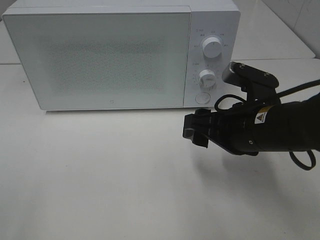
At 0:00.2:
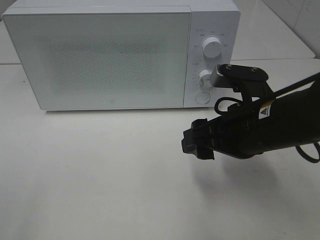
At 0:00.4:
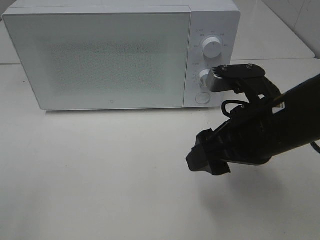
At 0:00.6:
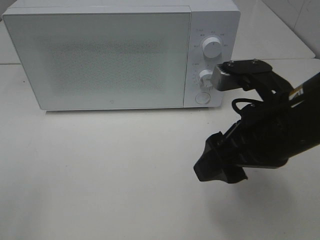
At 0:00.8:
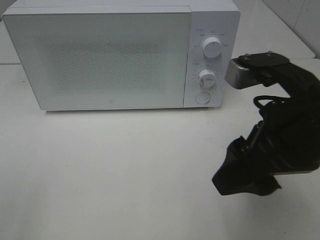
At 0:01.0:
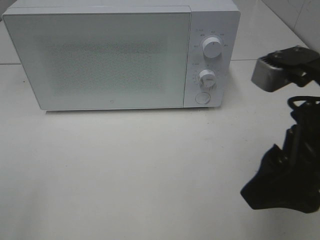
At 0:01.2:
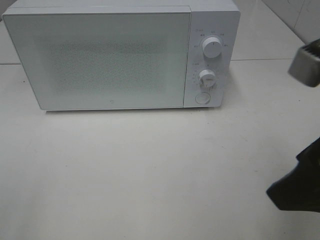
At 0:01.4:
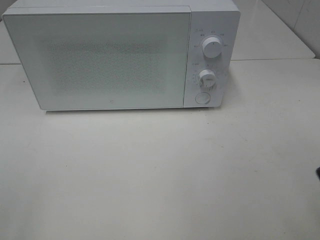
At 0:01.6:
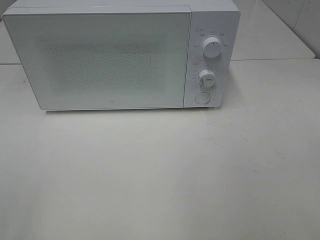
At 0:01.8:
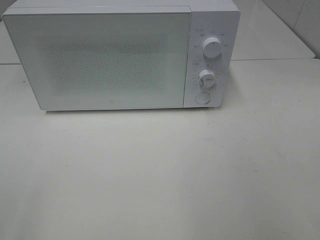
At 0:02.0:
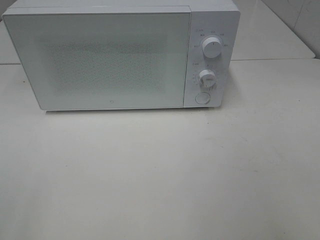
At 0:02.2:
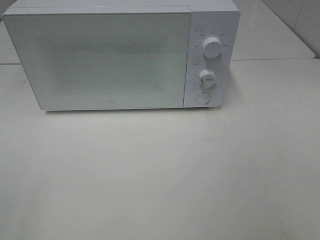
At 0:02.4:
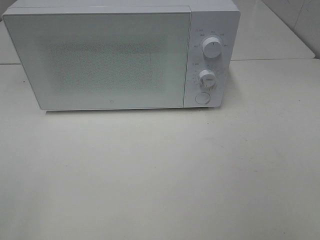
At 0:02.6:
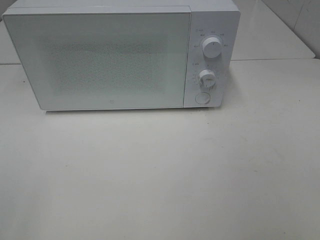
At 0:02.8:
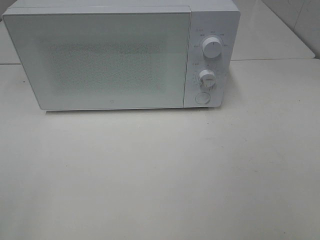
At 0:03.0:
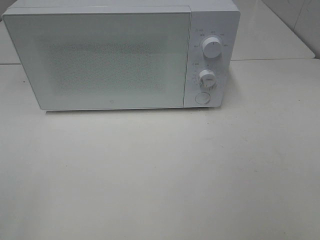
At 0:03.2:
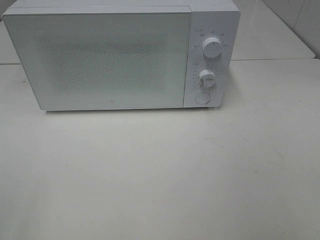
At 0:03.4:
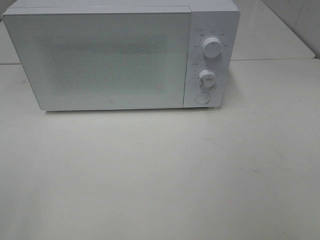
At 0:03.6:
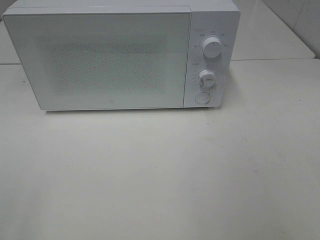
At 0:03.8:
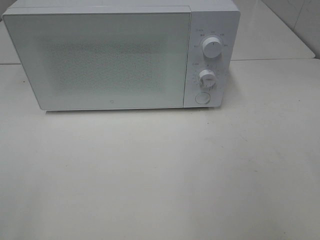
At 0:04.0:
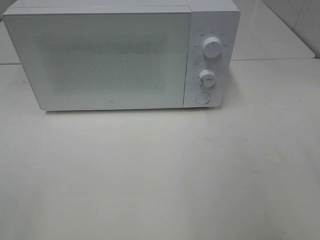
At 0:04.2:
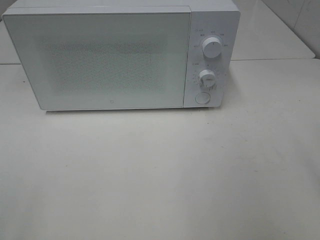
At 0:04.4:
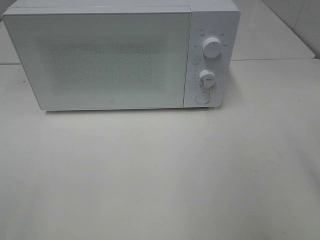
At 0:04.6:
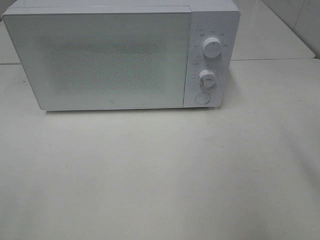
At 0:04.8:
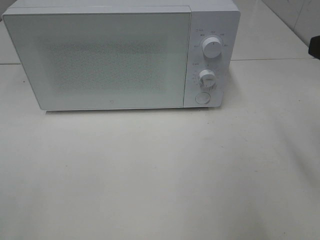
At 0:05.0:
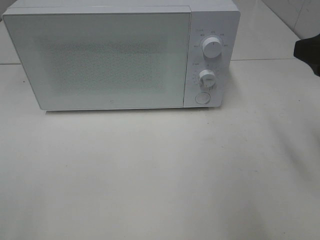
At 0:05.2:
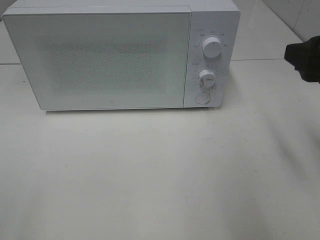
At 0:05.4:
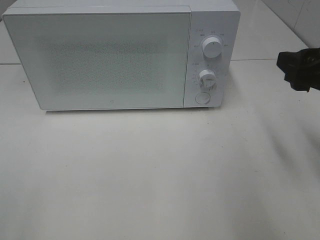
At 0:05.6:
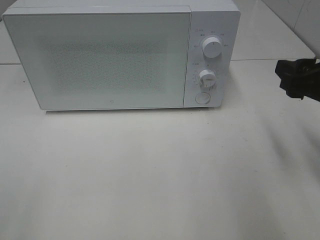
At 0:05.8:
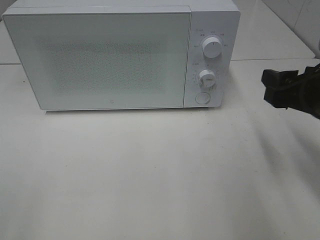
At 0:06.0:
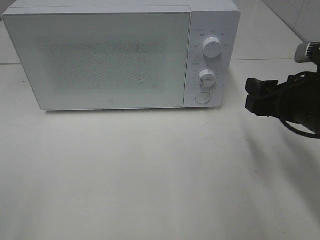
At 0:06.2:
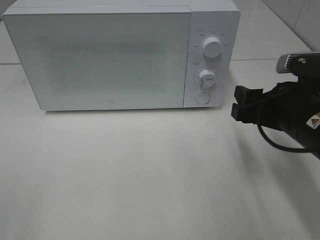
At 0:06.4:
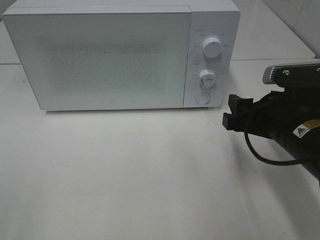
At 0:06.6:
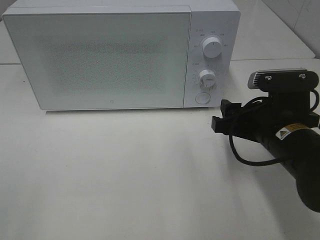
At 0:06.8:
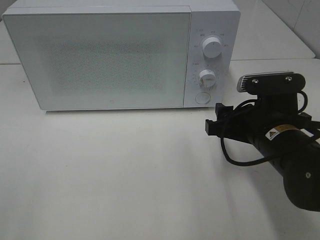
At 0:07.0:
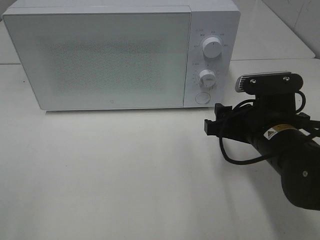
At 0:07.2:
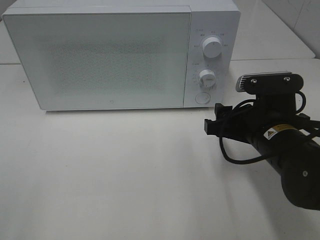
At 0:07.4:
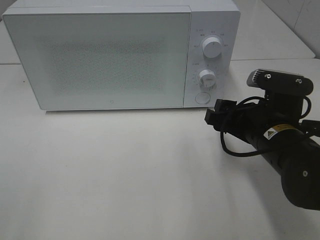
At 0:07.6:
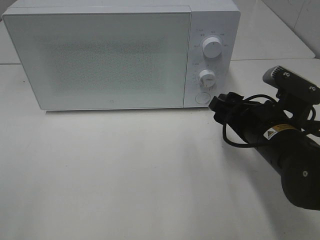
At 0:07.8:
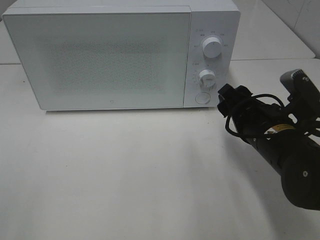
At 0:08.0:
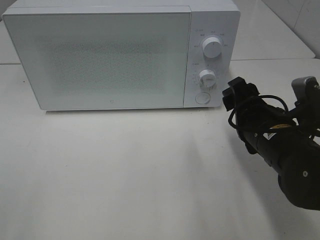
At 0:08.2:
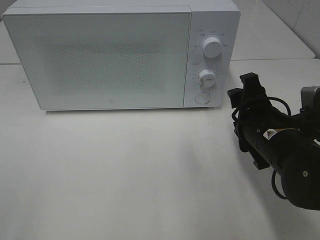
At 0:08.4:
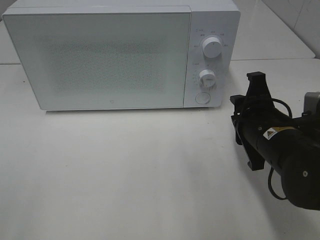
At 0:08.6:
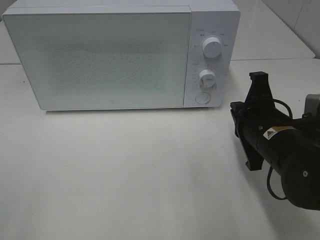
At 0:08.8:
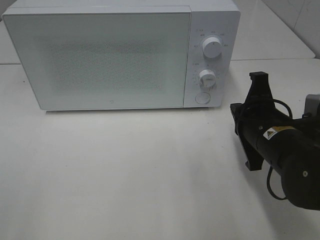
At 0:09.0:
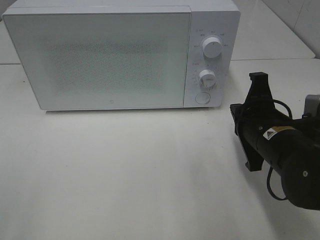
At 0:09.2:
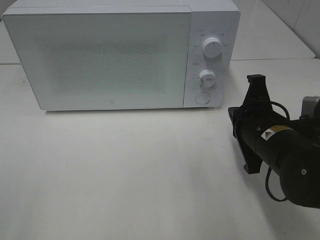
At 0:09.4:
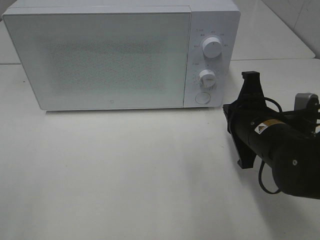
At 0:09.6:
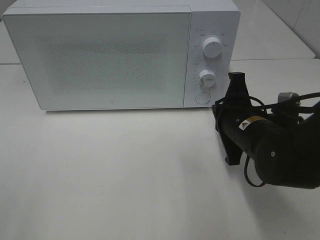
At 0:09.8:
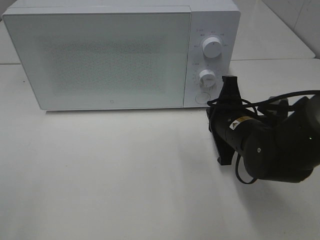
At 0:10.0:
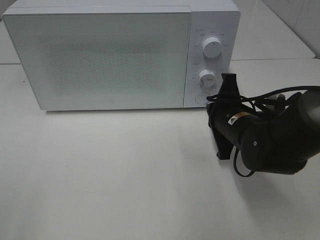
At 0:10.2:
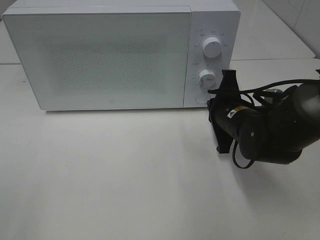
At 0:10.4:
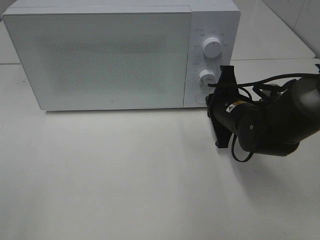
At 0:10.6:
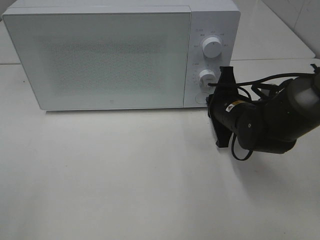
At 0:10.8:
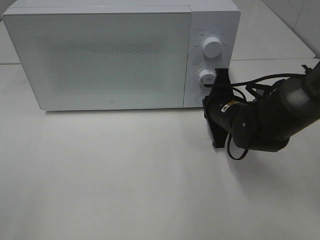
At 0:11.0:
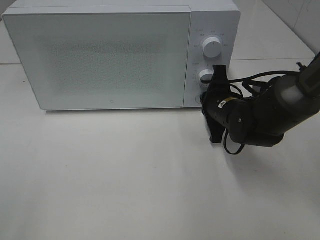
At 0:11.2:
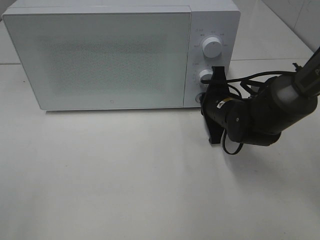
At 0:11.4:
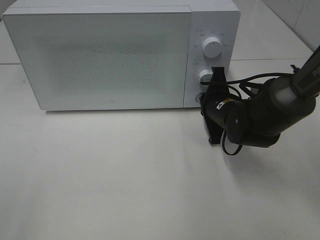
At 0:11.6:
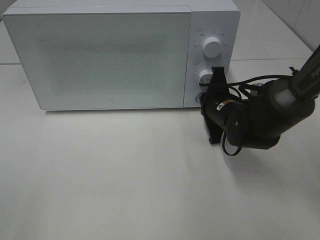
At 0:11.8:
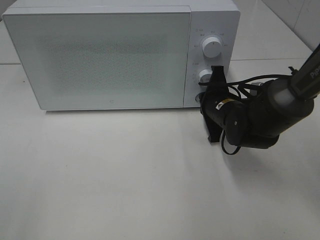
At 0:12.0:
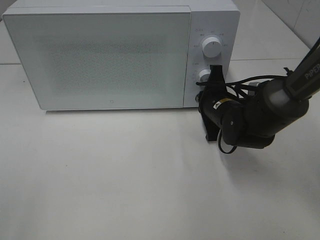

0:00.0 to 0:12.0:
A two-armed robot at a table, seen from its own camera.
Task of the whole recording: Heat Sandwich.
0:00.0 to 0:01.6: The right gripper is displaced backward, upward and to the right by approximately 25 cm.
0:04.4 to 0:06.0: The right gripper is displaced downward and forward by some 15 cm.
0:06.0 to 0:07.6: The right gripper is displaced to the left by approximately 5 cm.
0:07.6 to 0:09.0: The right gripper closes up.
0:09.0 to 0:10.4: The right gripper travels forward by some 10 cm.
0:10.4 to 0:12.0: The grippers move only a little.

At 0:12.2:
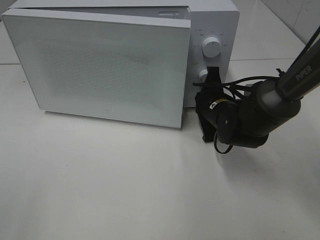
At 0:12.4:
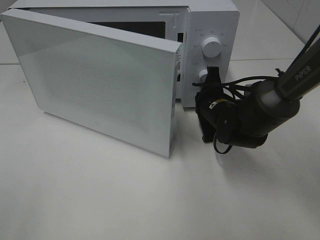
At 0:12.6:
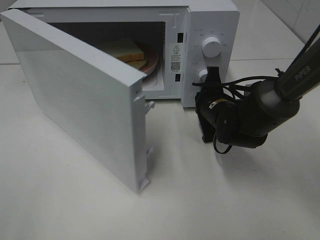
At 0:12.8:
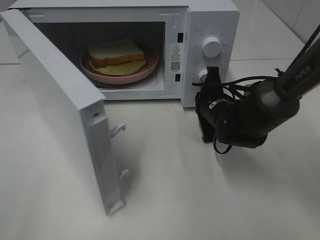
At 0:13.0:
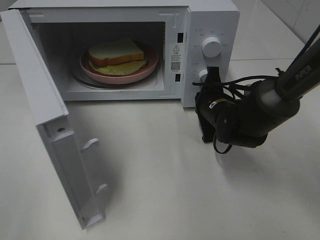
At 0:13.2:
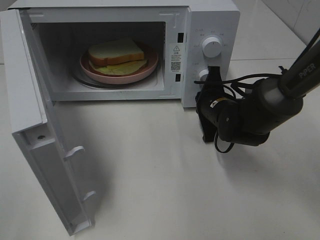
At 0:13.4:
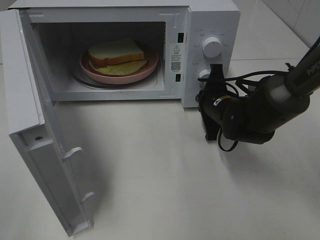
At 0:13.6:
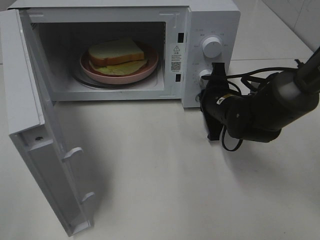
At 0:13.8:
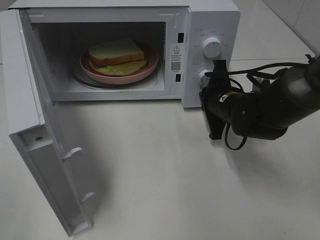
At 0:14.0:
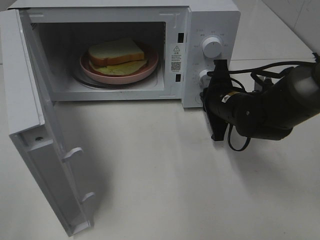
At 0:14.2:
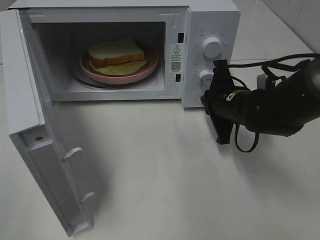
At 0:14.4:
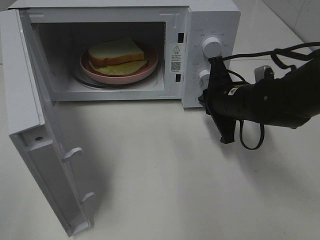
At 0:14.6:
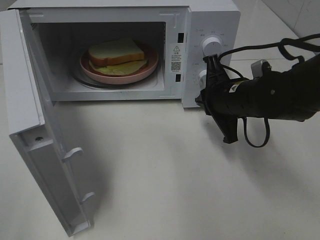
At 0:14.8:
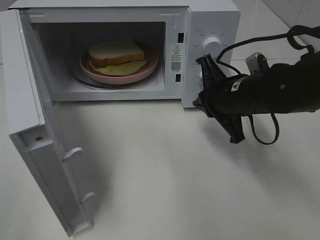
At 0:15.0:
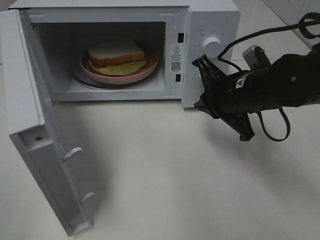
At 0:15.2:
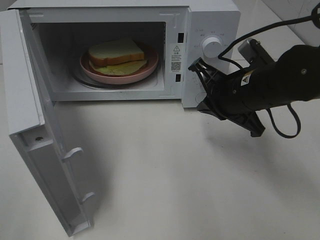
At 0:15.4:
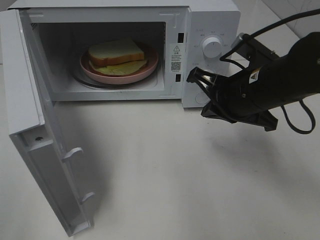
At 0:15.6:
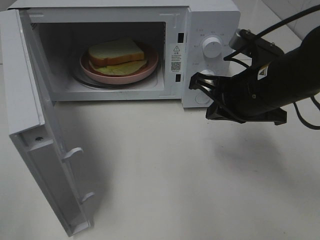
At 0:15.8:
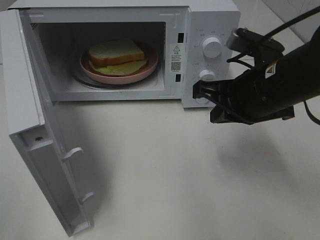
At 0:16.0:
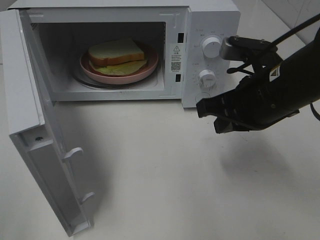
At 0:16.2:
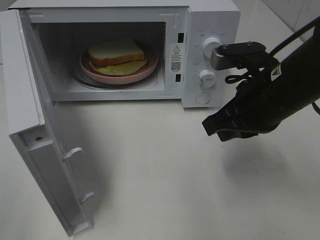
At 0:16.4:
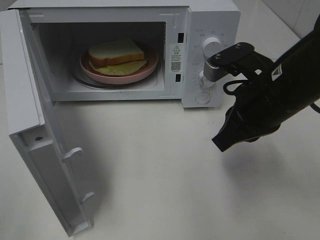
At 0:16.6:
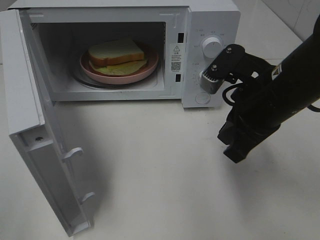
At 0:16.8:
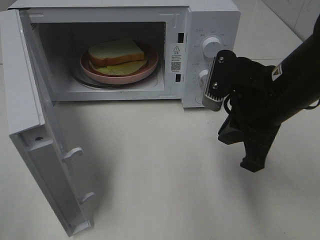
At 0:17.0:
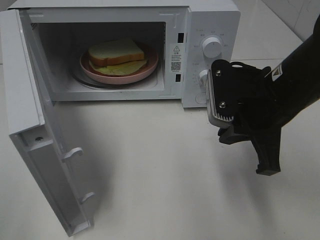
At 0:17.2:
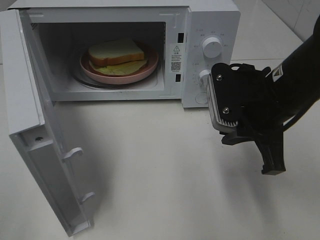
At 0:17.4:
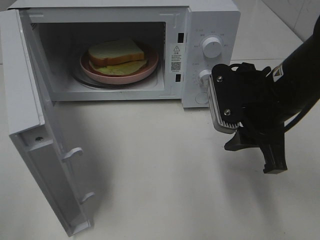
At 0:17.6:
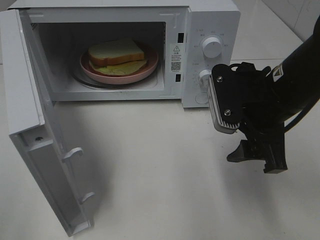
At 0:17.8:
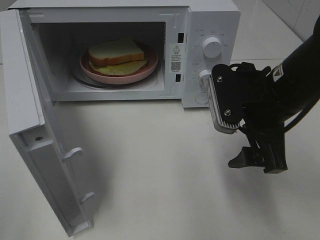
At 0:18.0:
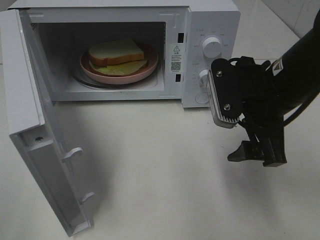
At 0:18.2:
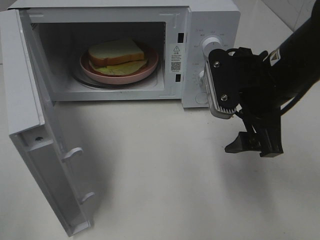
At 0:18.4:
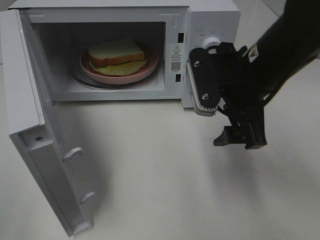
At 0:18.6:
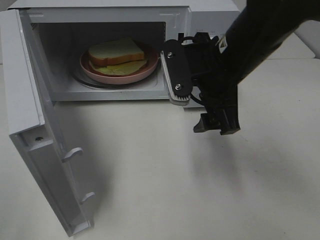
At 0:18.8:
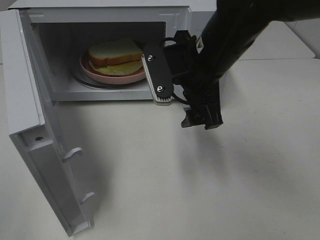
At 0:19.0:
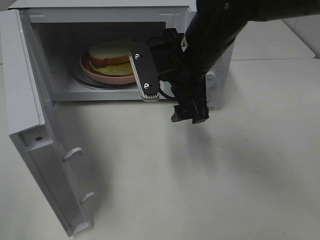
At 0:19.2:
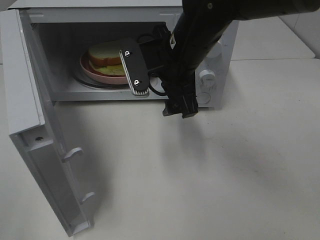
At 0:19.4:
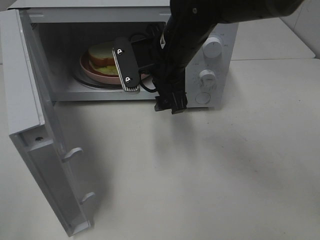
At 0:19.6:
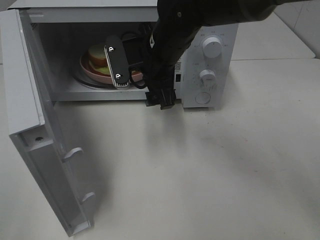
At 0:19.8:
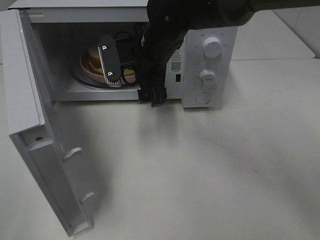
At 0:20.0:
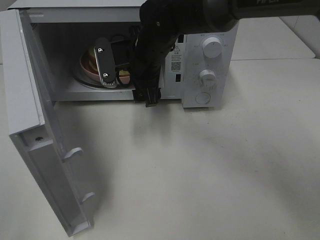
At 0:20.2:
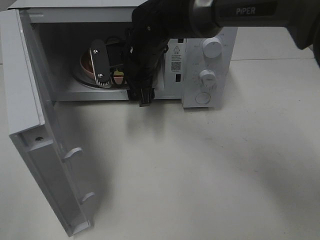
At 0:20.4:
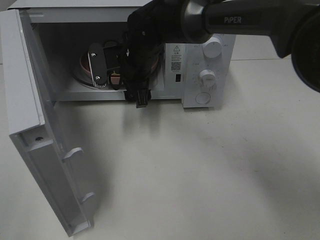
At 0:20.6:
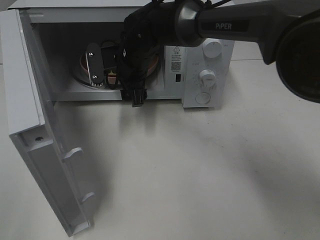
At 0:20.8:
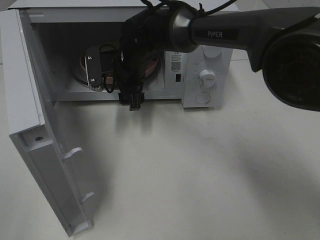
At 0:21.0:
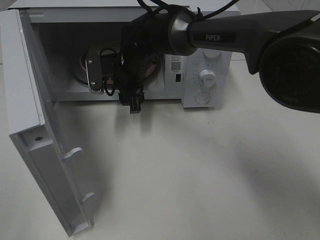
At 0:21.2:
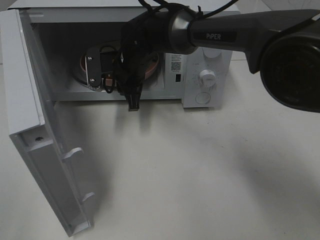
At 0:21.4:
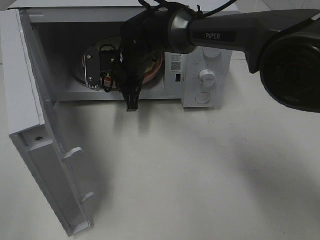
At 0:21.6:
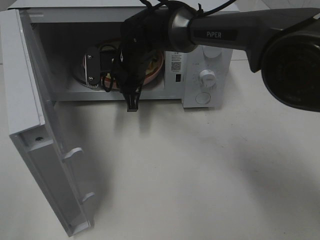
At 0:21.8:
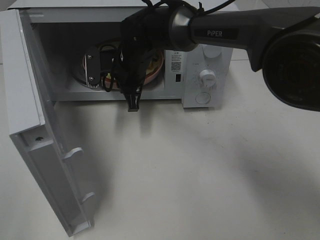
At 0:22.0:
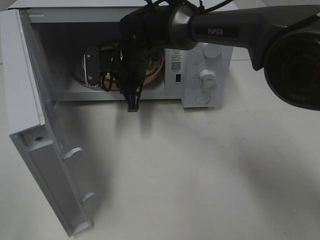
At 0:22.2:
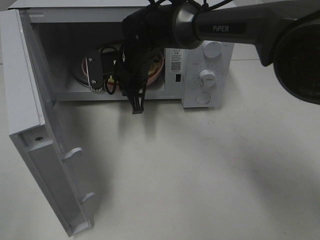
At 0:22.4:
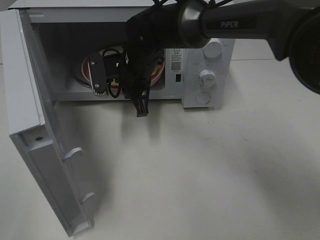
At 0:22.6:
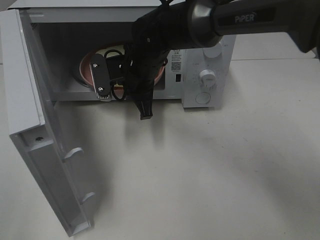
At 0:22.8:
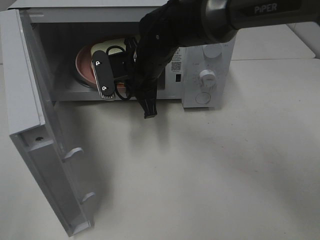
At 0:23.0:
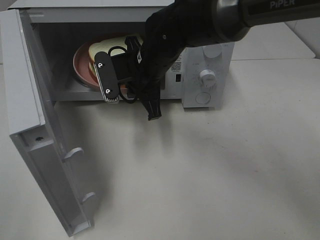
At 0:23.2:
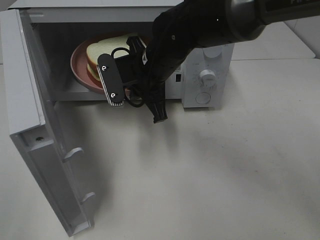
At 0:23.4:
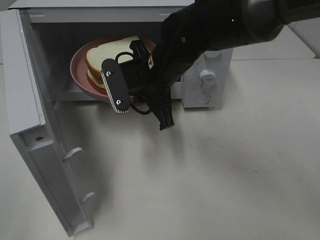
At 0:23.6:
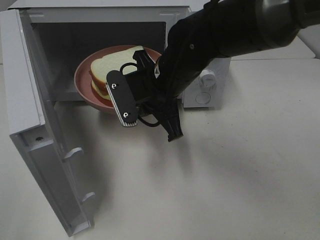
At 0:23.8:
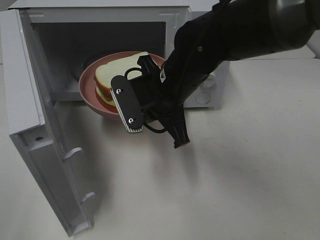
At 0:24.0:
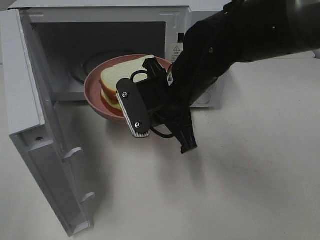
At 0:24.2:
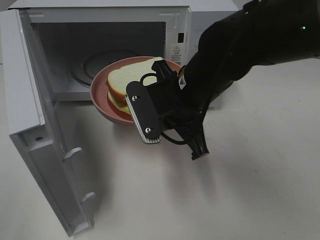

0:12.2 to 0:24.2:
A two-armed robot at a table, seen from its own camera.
Task of the whole recording: Heat Sandwich.
Step, 0:14.2 to 0:21.4: Right hand: grab the plate with the sandwich.
0:13.8 to 0:15.2: The right gripper heads upward and backward, covering some 10 cm.
0:15.2 to 0:16.6: The right gripper shifts by about 5 cm.
0:16.6 to 0:18.2: The right gripper opens its fingers.
0:18.2 to 0:19.8: The right gripper travels to the left and forward by about 20 cm.
0:19.8 to 0:21.2: The right gripper travels downward by roughly 5 cm, and closes its fingers.
0:21.2 to 0:22.6: There are only small adjustments of the grippers.
0:22.6 to 0:24.2: The right gripper goes roughly 15 cm backward and to the right.
